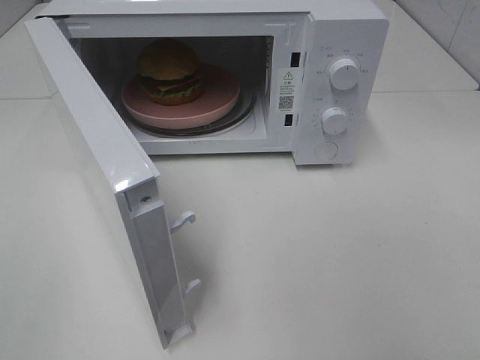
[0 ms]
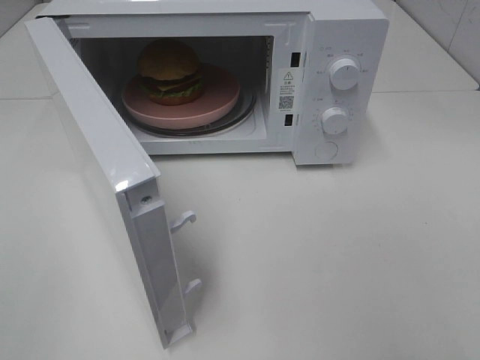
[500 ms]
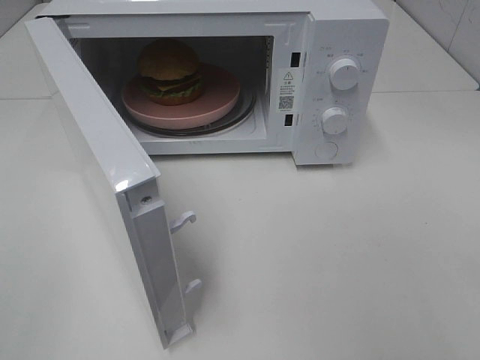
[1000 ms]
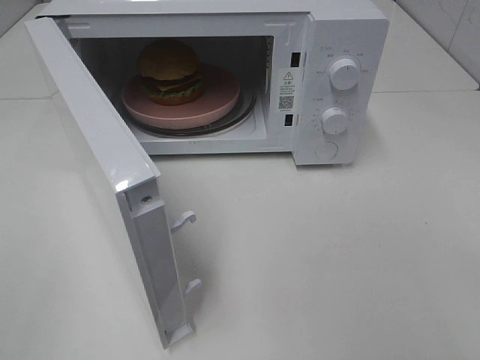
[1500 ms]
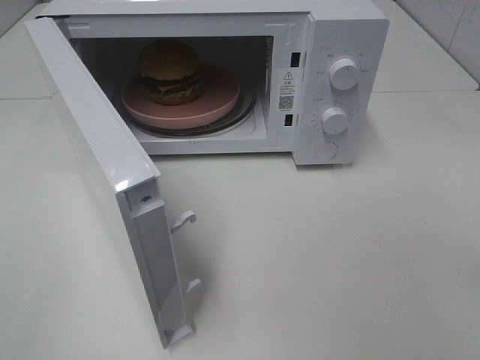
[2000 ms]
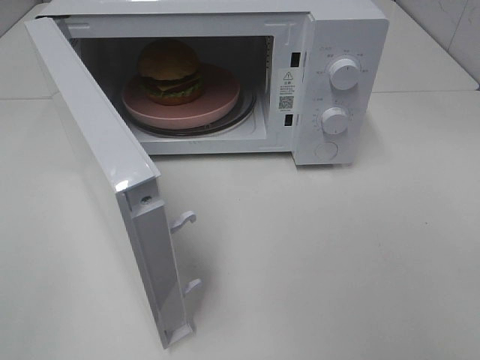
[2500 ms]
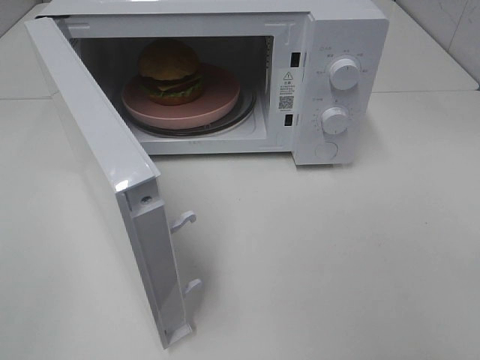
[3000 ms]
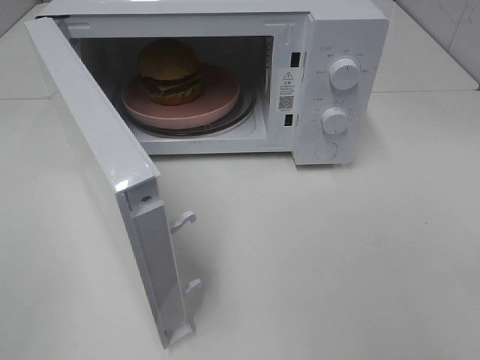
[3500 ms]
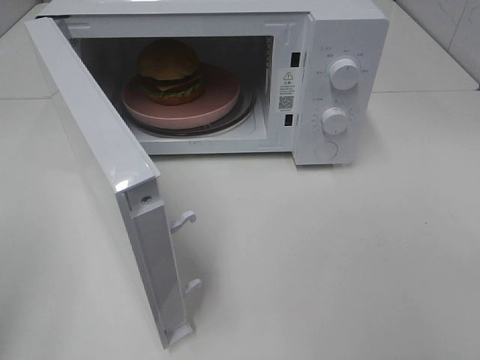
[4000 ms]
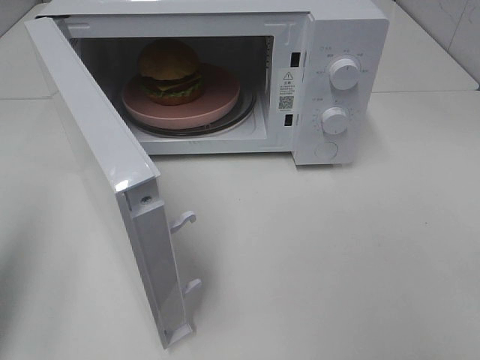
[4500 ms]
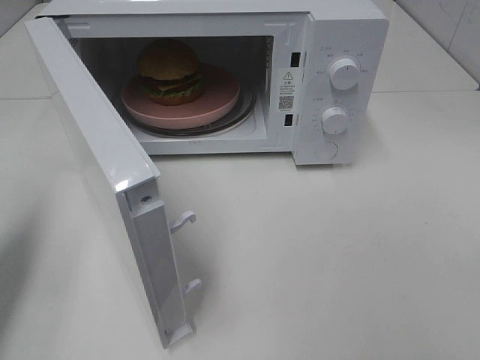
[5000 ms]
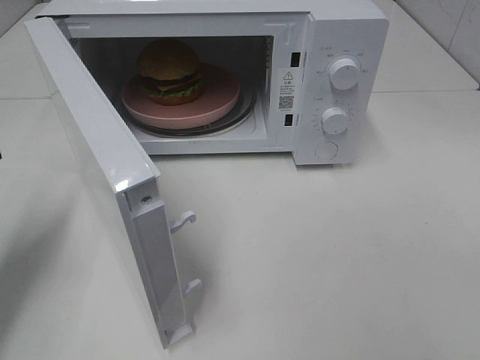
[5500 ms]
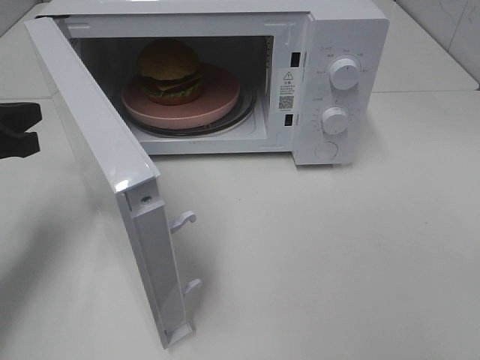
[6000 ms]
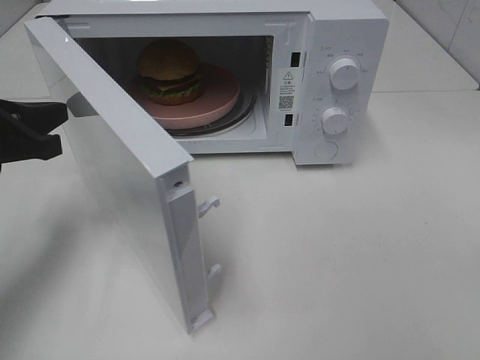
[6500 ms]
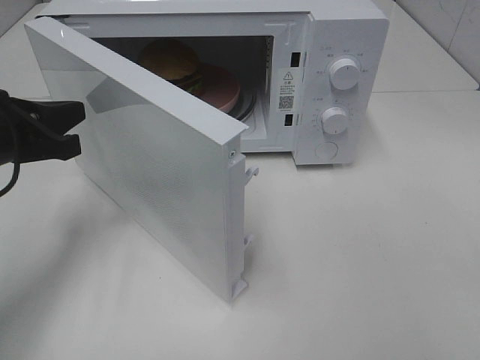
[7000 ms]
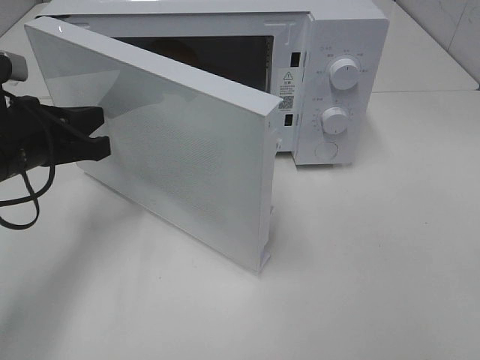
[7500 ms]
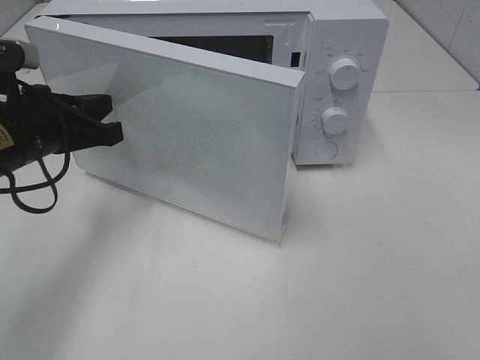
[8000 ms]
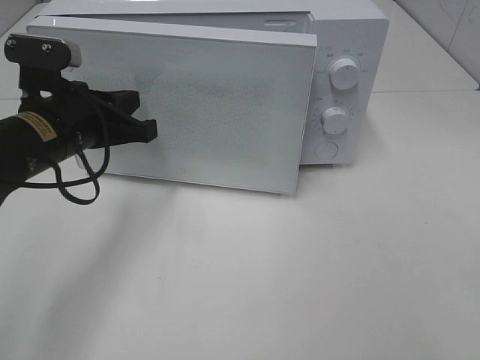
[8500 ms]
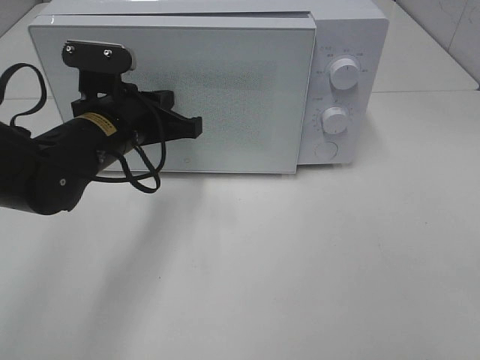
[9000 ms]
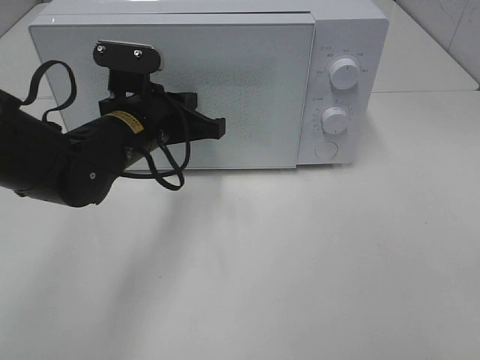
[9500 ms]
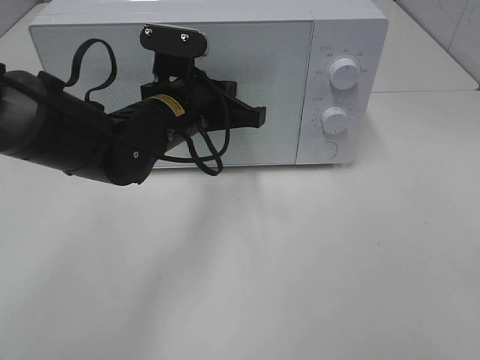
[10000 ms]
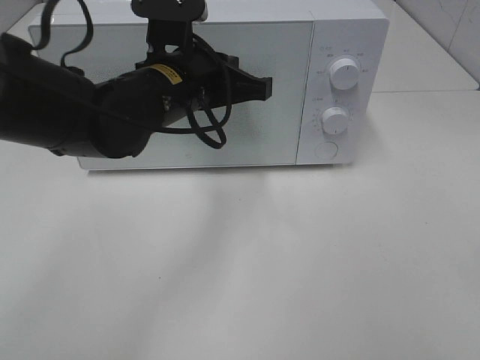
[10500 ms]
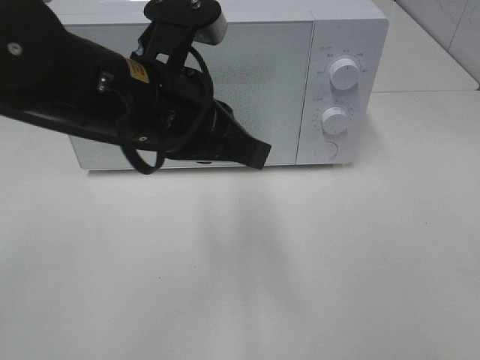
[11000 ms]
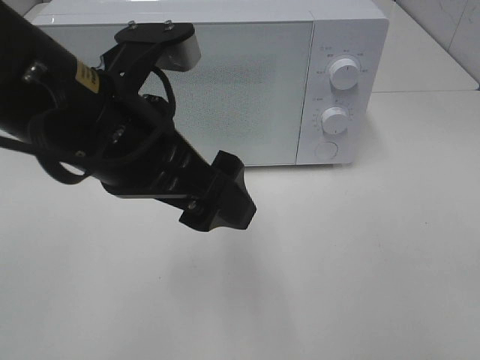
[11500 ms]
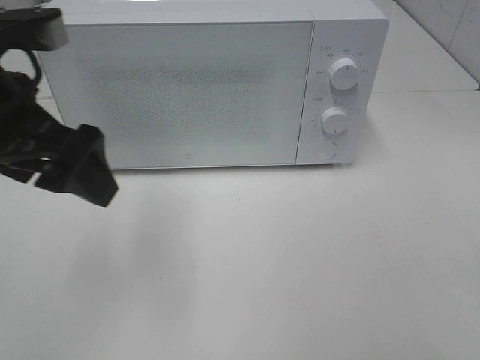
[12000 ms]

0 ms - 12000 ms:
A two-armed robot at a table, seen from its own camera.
Task of the whole recording: Heat the burger.
Step, 0 ms - 9500 ms: Left hand: close the microwave door.
4000 ms - 6000 ms: The left gripper travels forward and downward by approximately 25 cm.
6000 ms - 8000 ms: The left gripper travels to the right by roughly 5 cm.
8000 ms - 10000 ms: The left gripper goes some 15 cm to the right.
10000 ms - 12000 ms: The left gripper moves to the left, upward and backward, roughly 20 cm, and opens up.

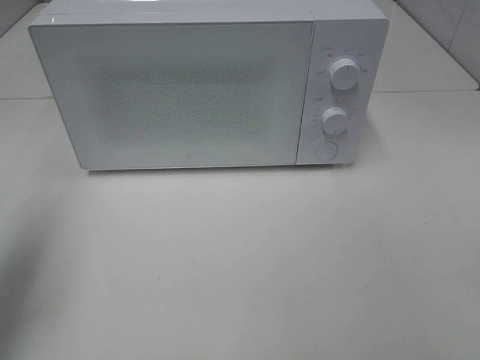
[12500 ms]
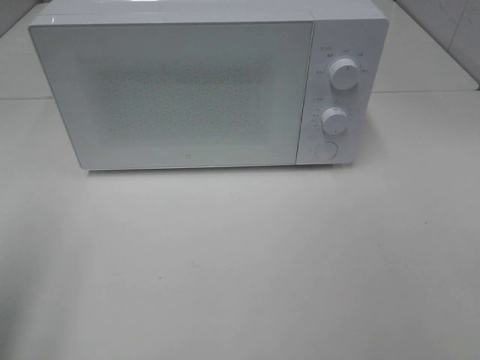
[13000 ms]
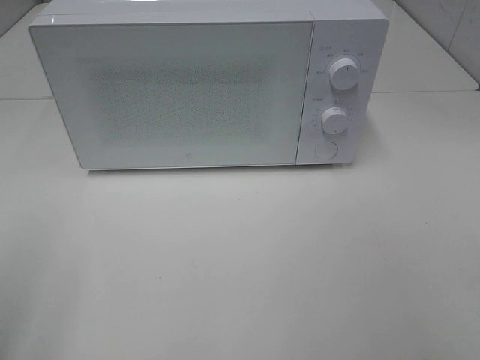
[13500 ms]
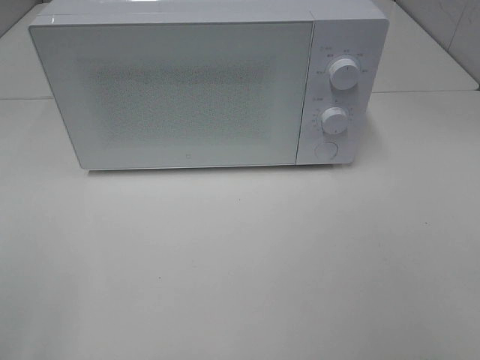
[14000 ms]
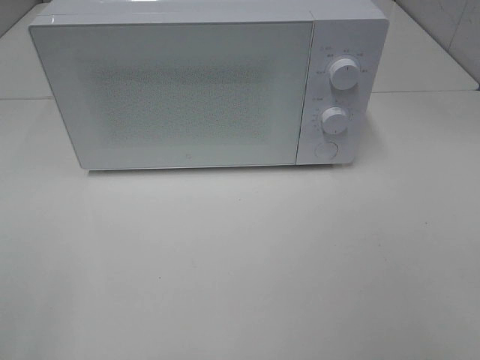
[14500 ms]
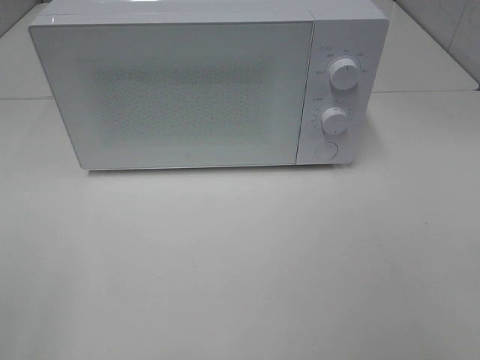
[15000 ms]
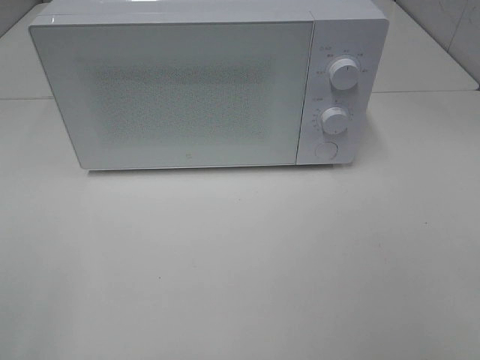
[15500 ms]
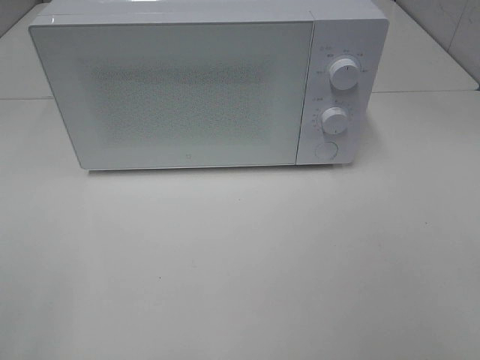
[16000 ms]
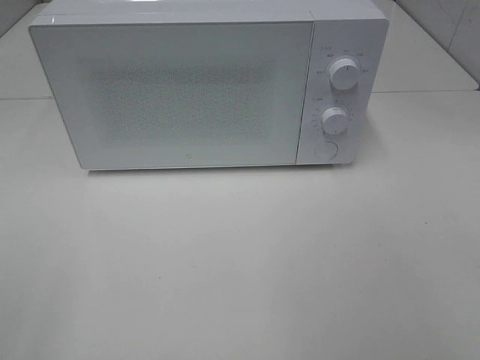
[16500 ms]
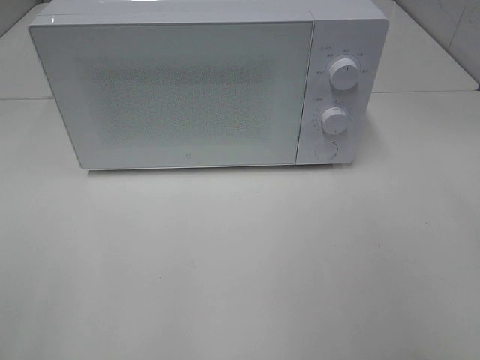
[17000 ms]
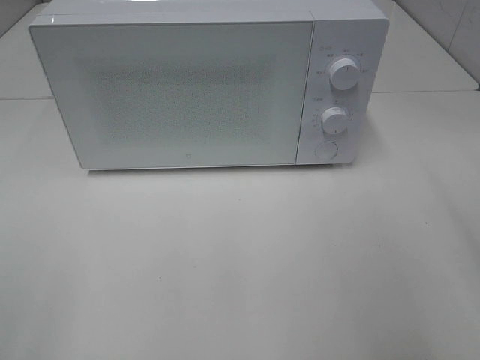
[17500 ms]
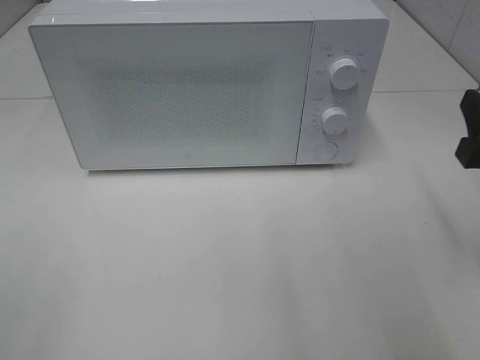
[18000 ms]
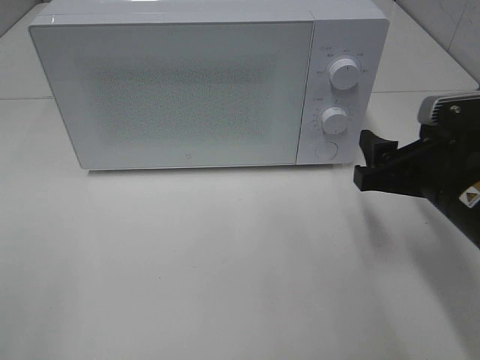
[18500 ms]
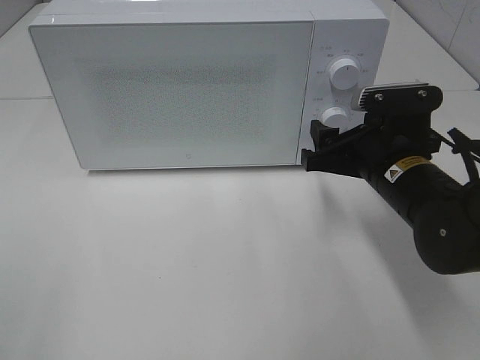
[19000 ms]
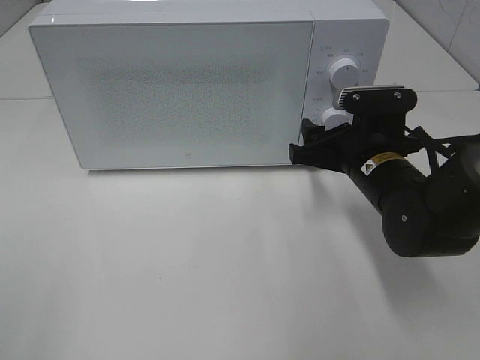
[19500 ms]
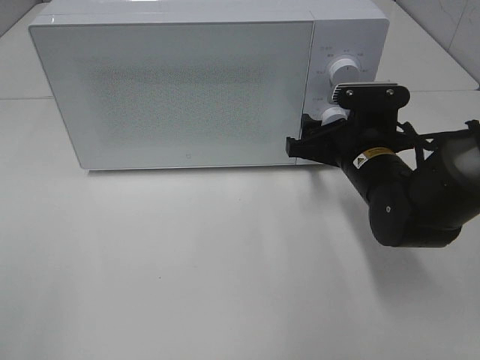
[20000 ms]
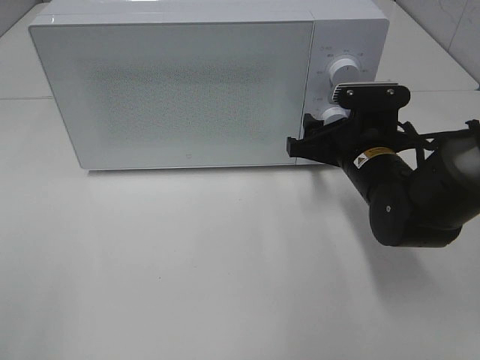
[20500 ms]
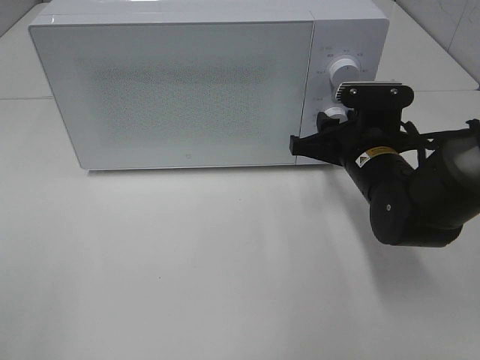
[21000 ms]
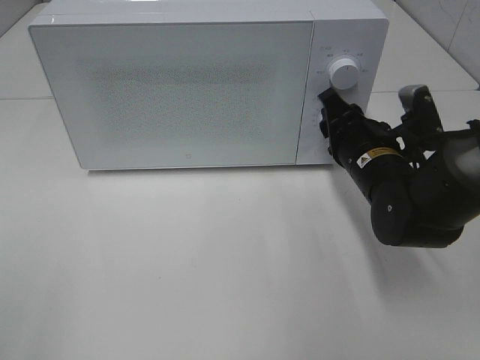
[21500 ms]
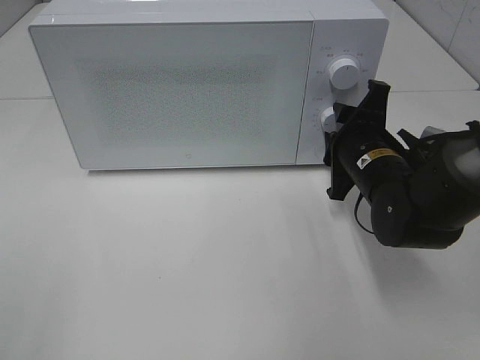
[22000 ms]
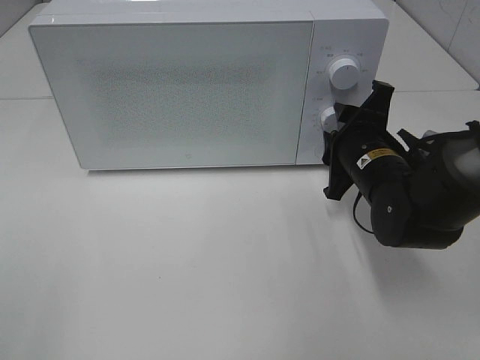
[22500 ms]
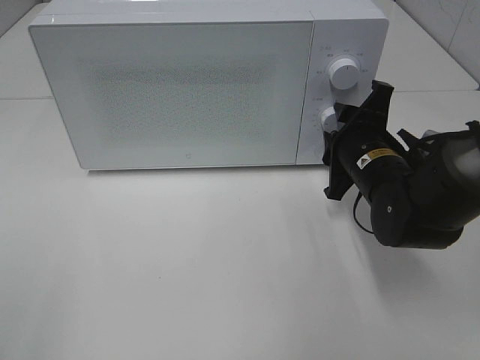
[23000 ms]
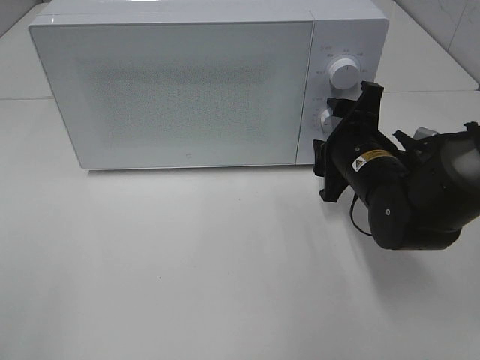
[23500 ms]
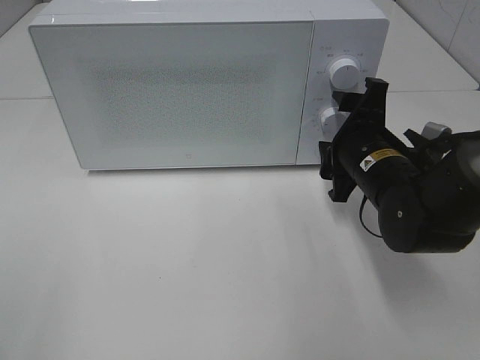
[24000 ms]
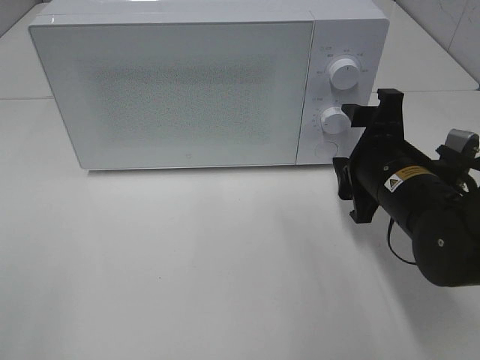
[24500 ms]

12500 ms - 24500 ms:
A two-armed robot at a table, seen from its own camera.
Task of the whole recording: Heat the burger.
Step, 12500 ms - 23000 ms: Right hand: twist timer button.
12500 ms - 14500 ms: The left gripper goes approximately 20 cm backward.
16500 ms - 18500 ms: The right gripper is displaced forward and downward by approximately 25 cm.
18500 ms - 20500 ms: The right gripper is displaced forward and to the left by some 10 cm.
22500 ms - 24500 ms: The right gripper is displaced backward by about 5 cm.

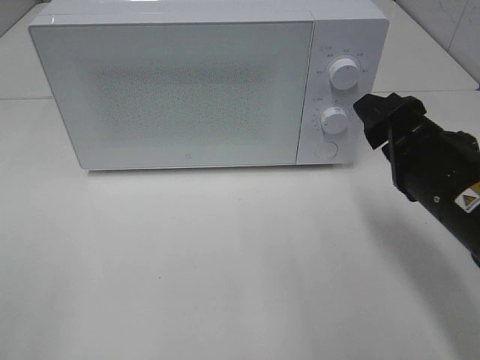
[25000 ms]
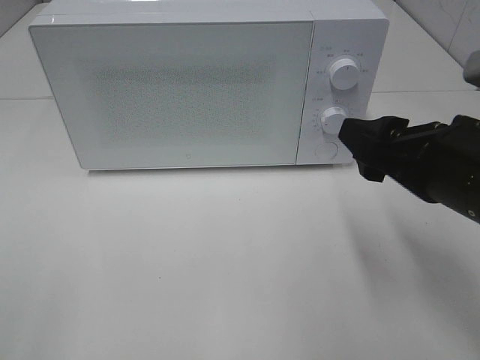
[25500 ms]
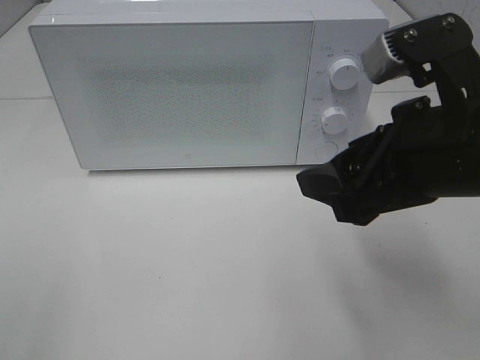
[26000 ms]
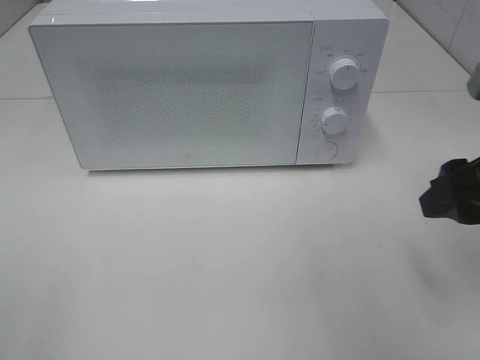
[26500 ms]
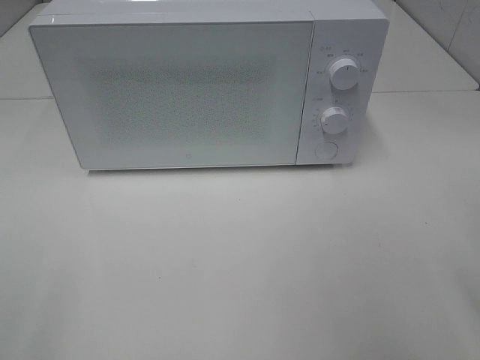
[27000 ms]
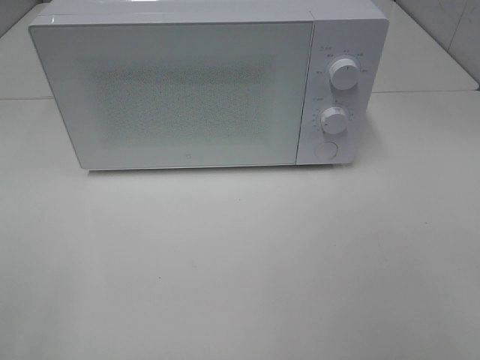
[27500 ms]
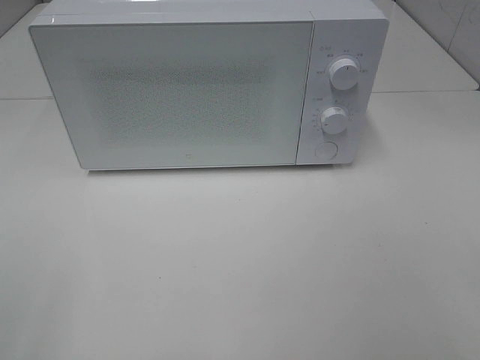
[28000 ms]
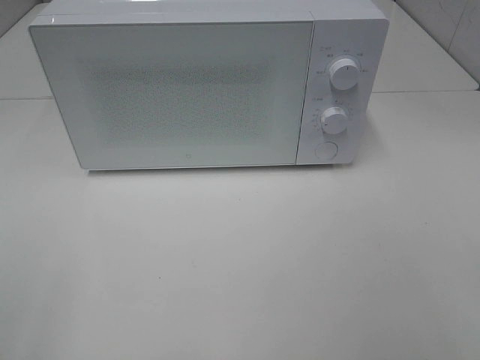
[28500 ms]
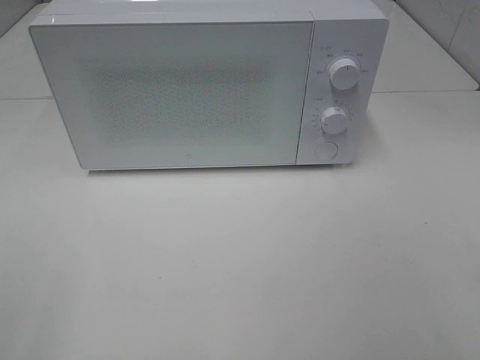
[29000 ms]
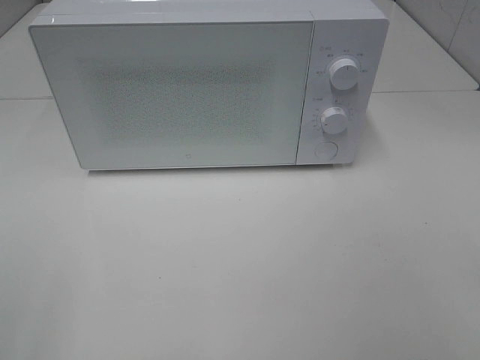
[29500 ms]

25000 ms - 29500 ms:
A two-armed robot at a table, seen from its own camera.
Task of the whole recording: Heat the burger.
25000 ms - 27000 ms: The right gripper goes approximately 15 cm to the right, upward and backward.
